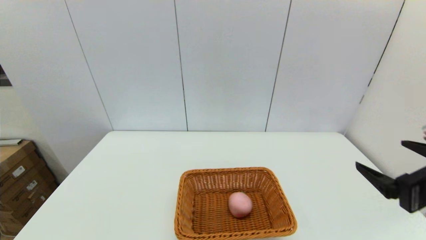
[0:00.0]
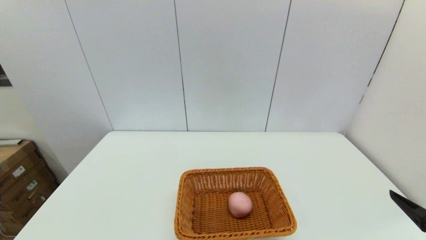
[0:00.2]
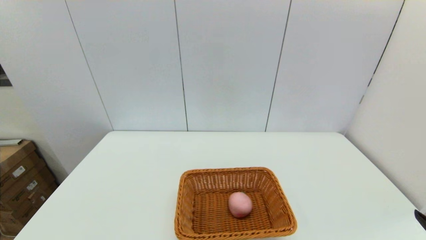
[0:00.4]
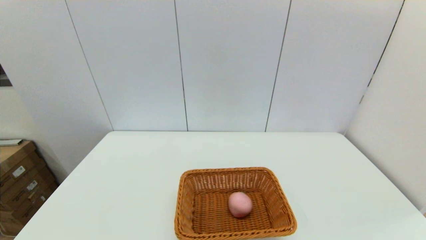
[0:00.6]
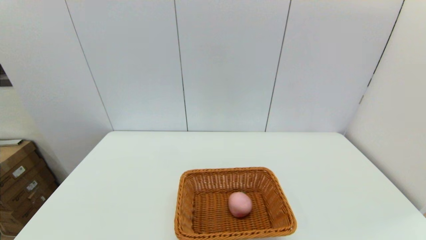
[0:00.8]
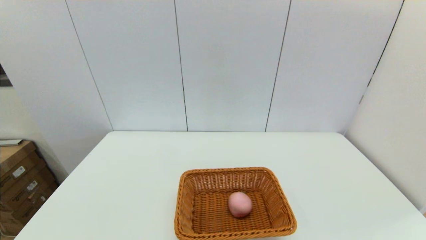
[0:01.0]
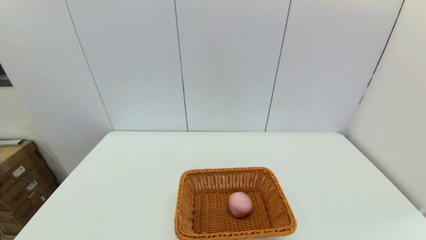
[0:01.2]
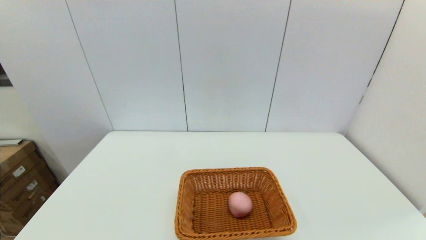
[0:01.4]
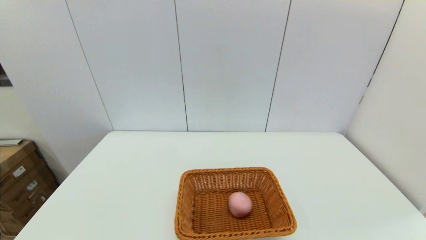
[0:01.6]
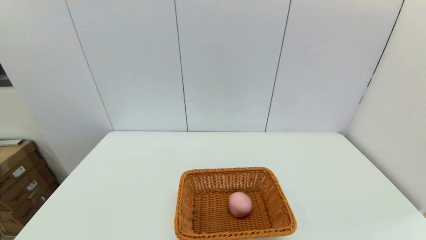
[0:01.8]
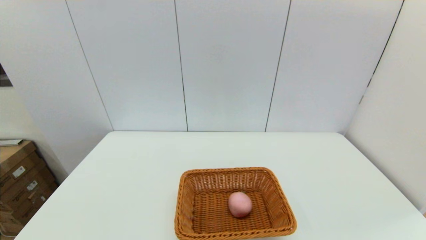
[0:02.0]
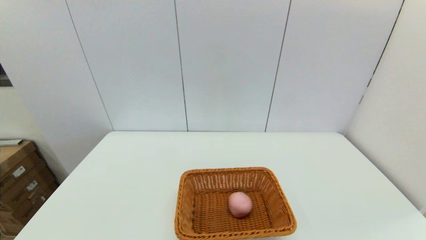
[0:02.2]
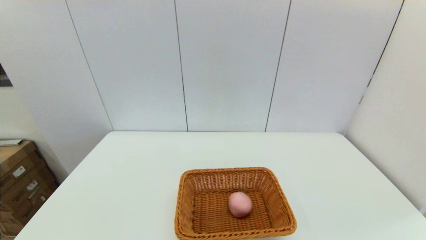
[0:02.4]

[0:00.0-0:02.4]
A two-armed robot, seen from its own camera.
0:00.0 to 0:01.2: The right gripper moves backward and downward, some 15 cm.

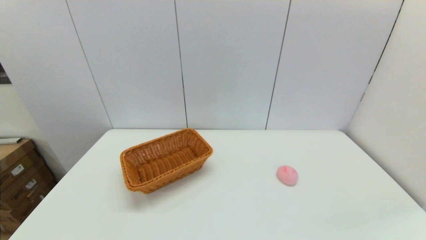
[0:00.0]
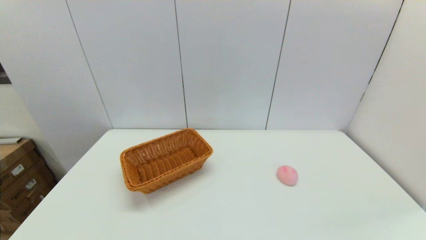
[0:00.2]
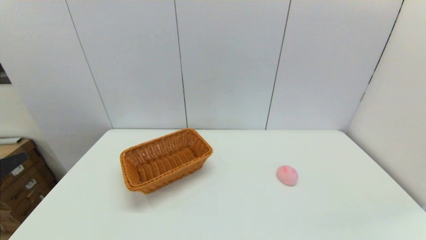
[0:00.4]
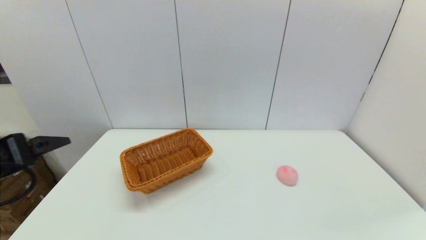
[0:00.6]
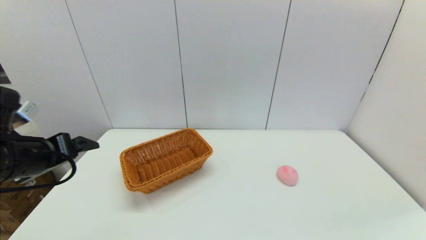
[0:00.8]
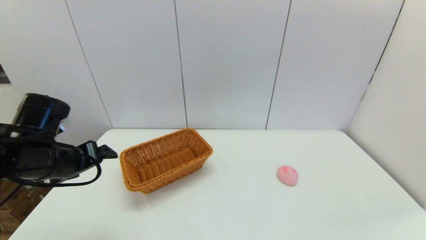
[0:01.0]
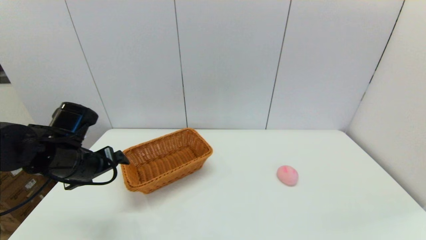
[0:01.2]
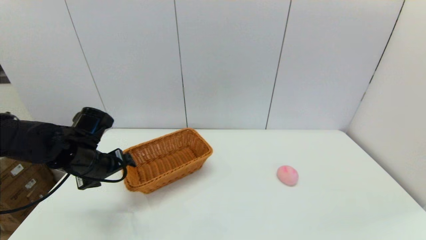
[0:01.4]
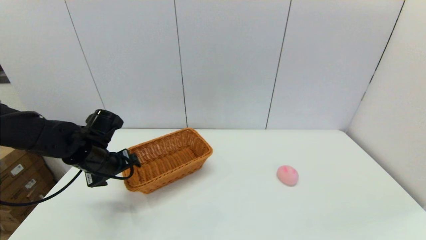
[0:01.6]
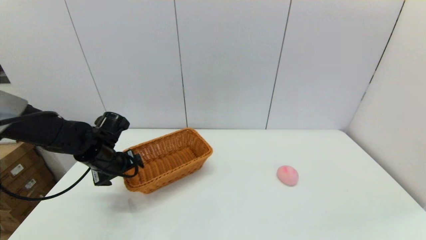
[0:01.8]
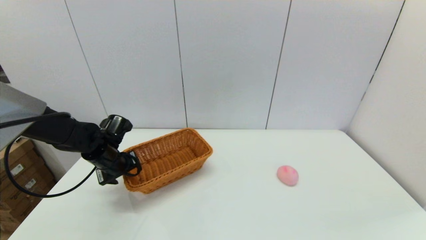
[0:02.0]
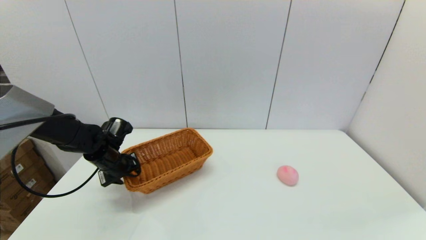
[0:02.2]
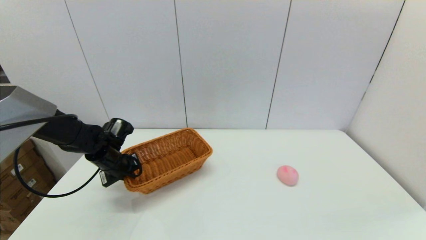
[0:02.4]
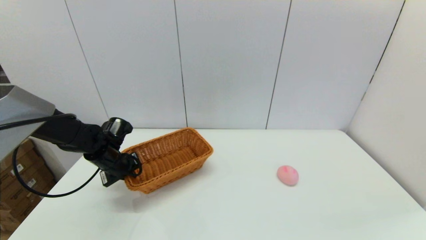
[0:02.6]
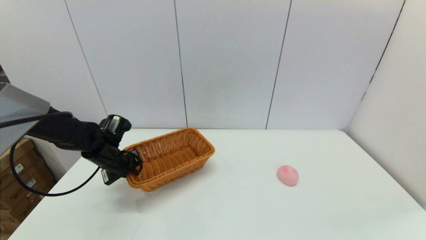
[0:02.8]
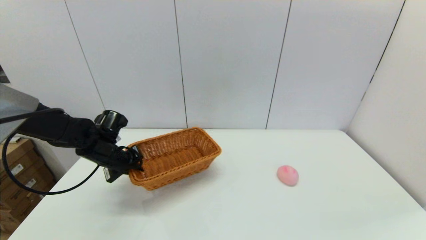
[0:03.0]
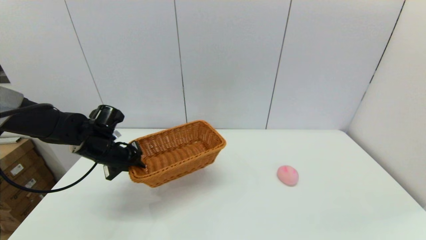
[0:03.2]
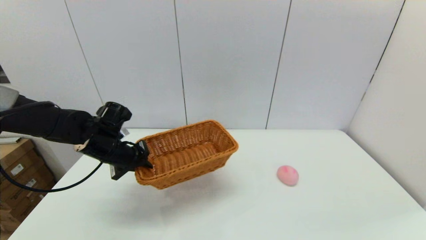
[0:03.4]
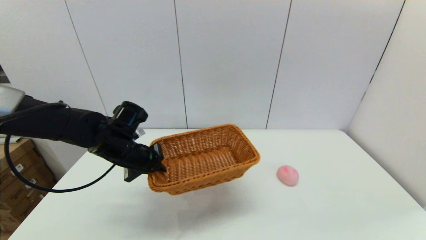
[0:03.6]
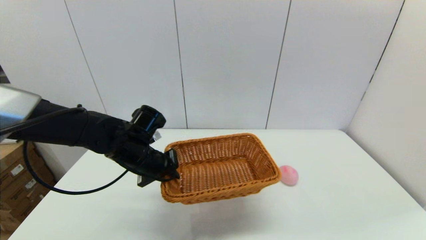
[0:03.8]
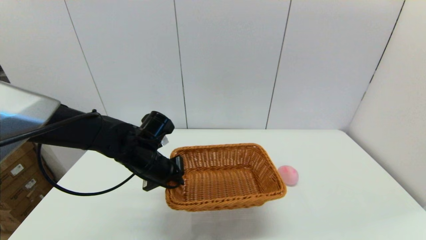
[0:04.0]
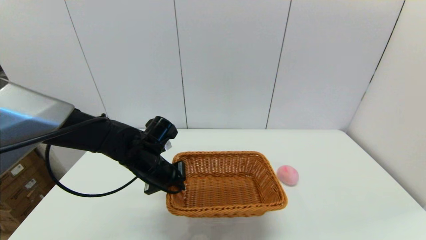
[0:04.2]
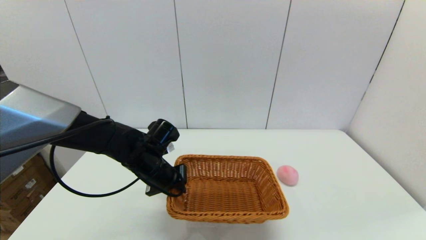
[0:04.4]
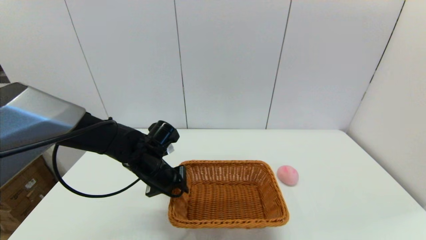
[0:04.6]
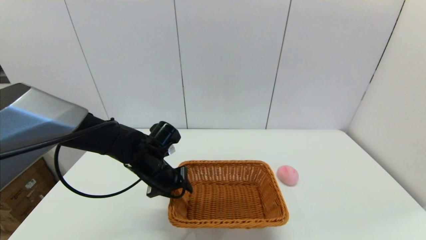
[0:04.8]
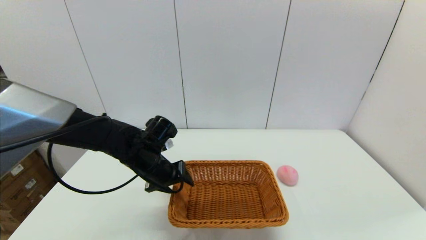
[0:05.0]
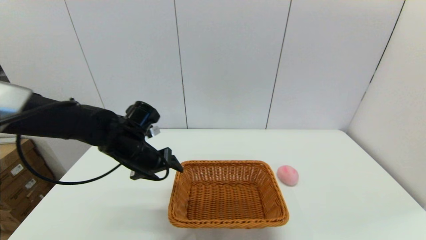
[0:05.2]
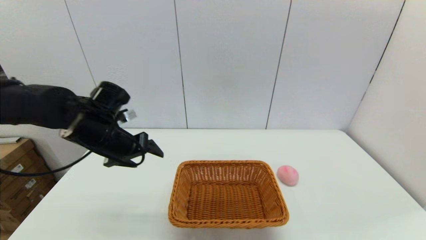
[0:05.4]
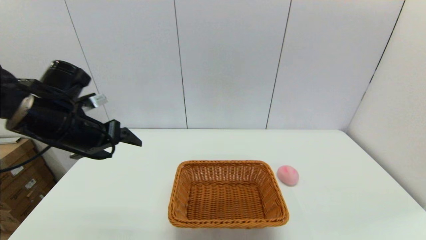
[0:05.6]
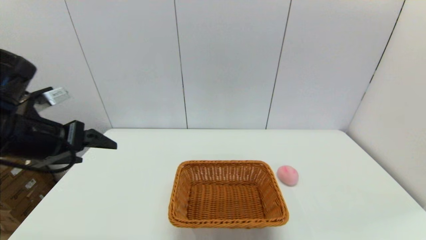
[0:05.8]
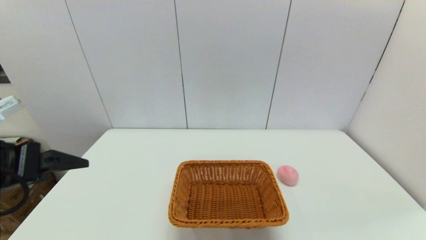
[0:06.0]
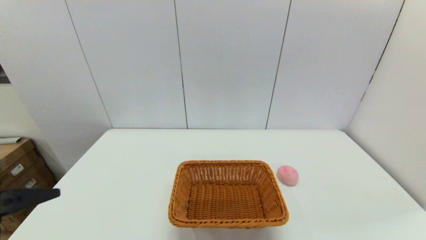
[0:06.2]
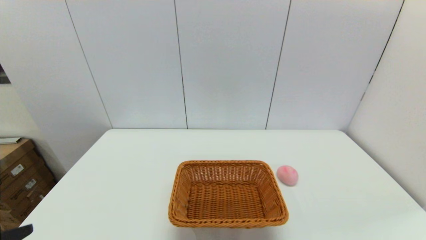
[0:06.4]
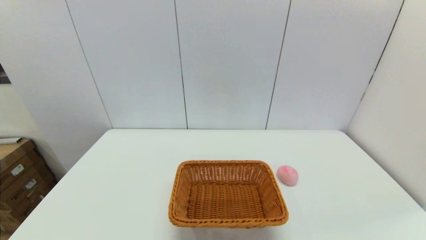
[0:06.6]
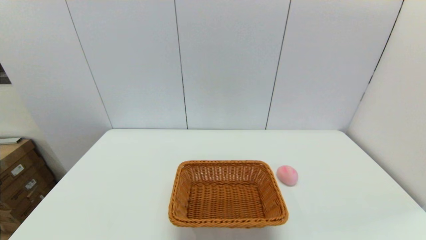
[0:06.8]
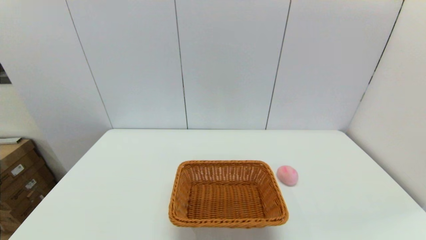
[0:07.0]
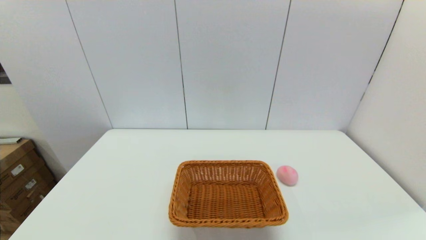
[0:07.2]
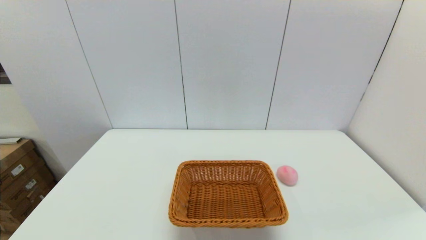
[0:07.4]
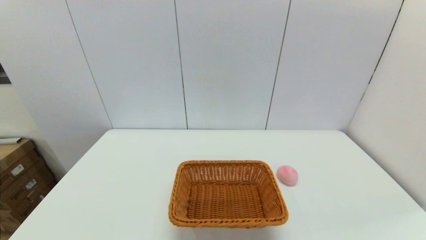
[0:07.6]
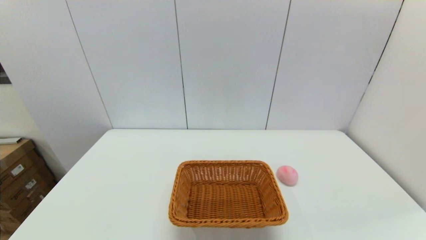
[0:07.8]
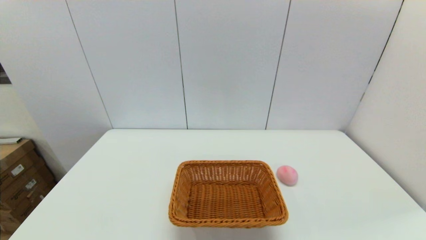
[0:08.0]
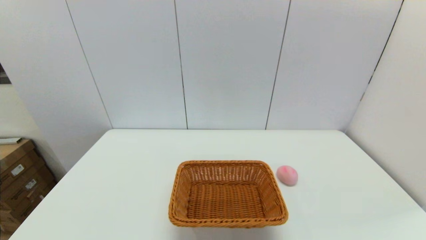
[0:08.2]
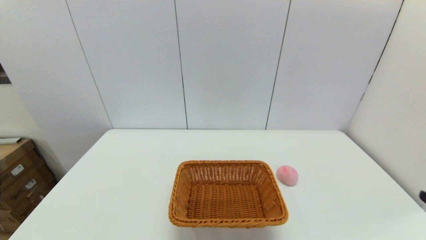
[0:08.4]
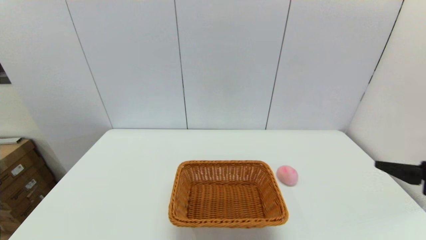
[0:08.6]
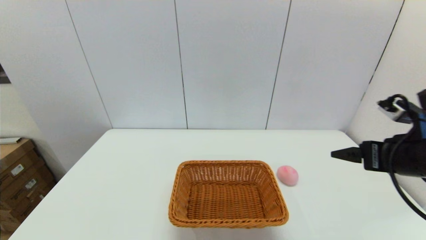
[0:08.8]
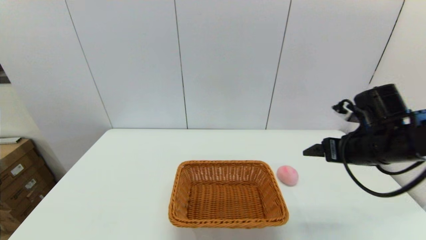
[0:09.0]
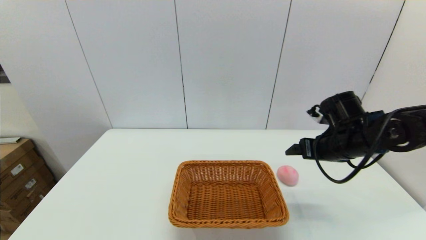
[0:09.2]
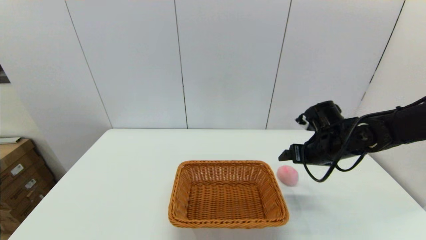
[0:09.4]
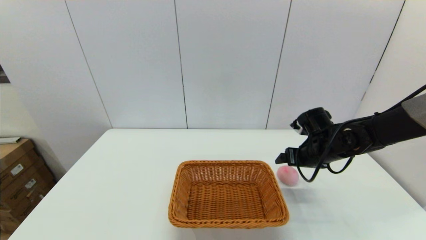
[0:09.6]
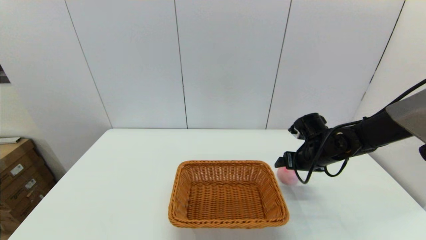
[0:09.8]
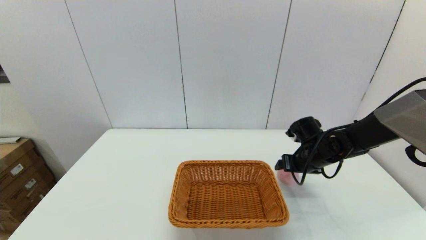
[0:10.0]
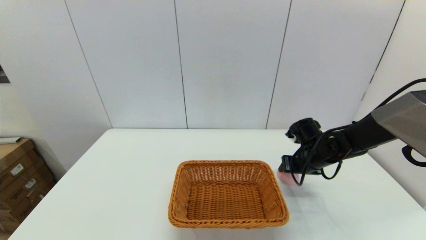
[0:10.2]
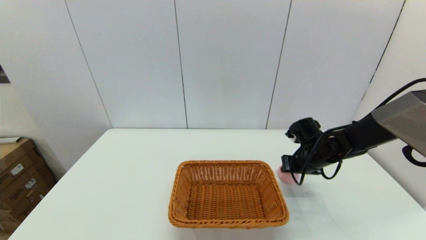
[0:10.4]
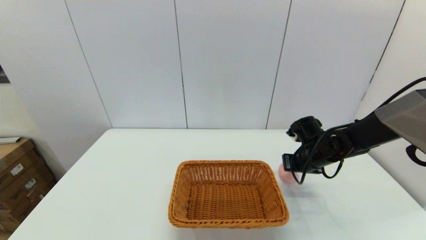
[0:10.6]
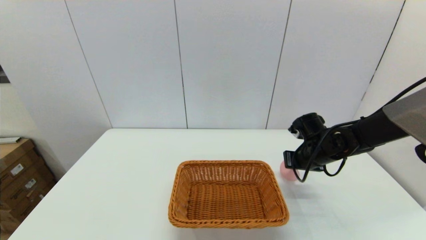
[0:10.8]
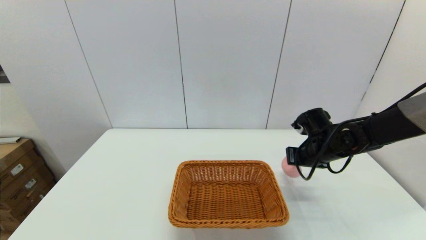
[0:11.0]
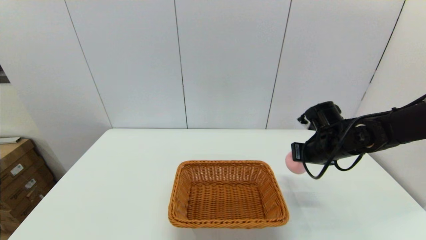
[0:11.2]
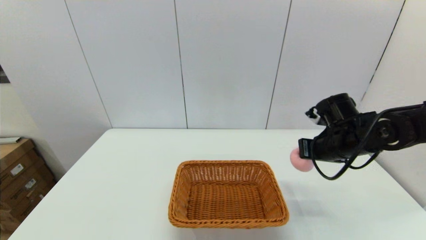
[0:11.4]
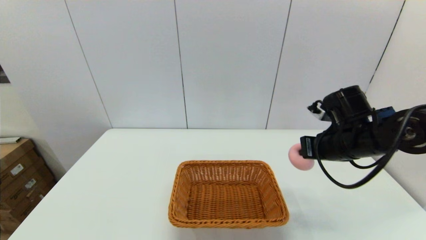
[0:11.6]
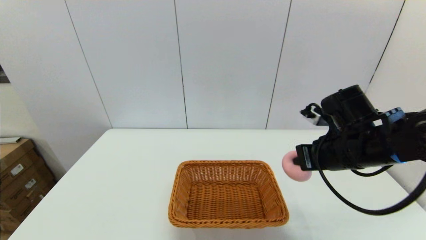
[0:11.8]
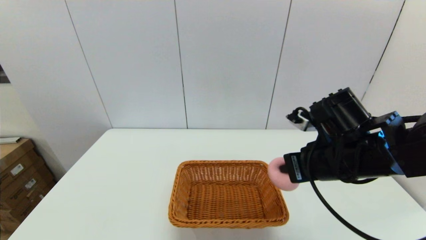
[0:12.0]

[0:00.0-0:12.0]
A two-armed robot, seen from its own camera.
Step, 0:00.0 to 0:02.4: Grasp the light basket with the left gripper.
Step, 0:02.6 to 0:04.6: Place the light basket on the middle of the table with the left gripper.
Step, 0:04.8 to 0:10.6: Grasp the peach with the right gripper.
0:00.0 to 0:01.6: The left gripper shifts roughly 35 cm forward.
0:01.6 to 0:03.0: The left gripper closes up.
0:03.0 to 0:04.4: The left gripper moves to the right, roughly 15 cm.
0:04.4 to 0:06.0: The left gripper is displaced upward, backward and to the left by some 30 cm, and opens up.
0:06.0 to 0:07.6: The left gripper heads downward and backward, covering approximately 25 cm.
0:07.6 to 0:09.0: The right gripper goes about 30 cm forward.
0:09.0 to 0:10.4: The right gripper is displaced downward and forward by approximately 15 cm, and closes.
0:10.4 to 0:12.0: The right gripper travels backward, upward and to the left by approximately 20 cm, and closes its fingers.

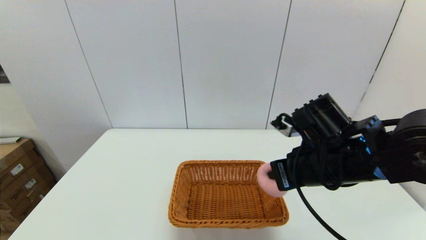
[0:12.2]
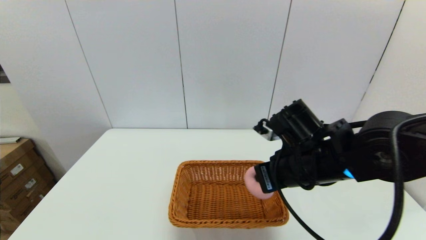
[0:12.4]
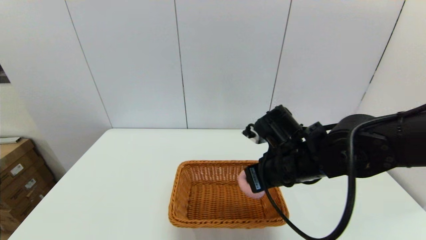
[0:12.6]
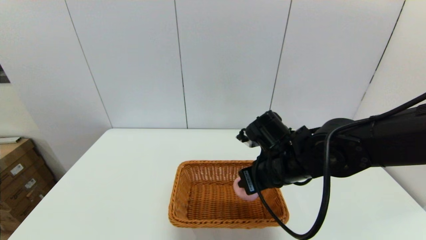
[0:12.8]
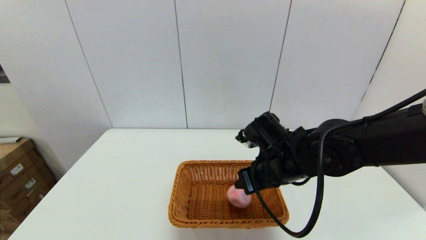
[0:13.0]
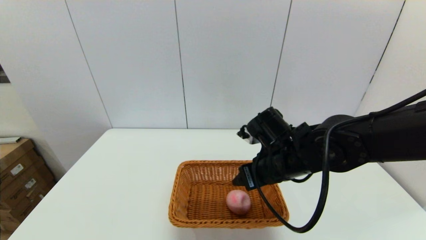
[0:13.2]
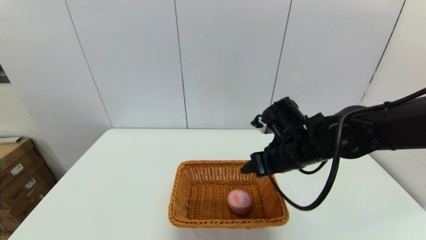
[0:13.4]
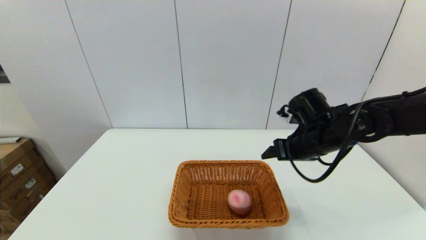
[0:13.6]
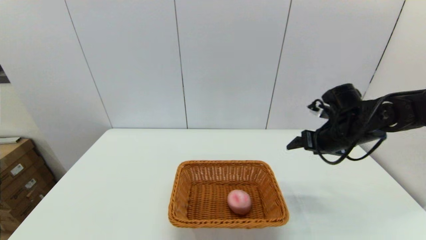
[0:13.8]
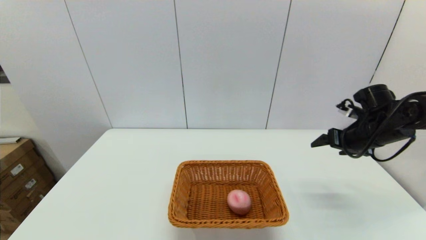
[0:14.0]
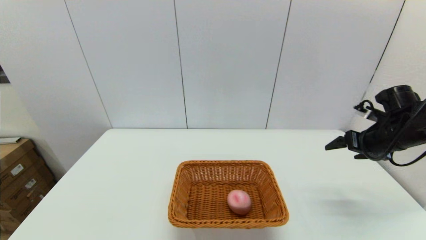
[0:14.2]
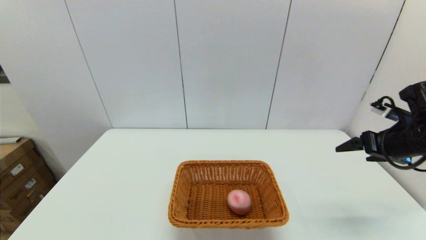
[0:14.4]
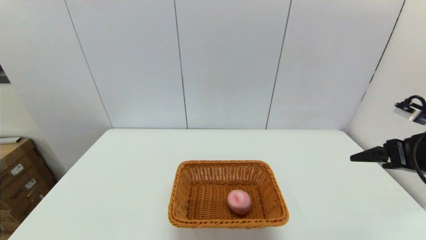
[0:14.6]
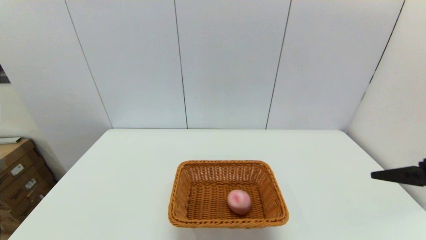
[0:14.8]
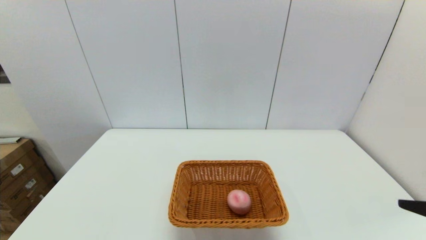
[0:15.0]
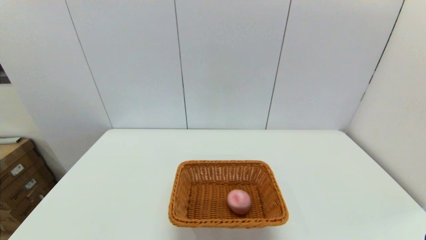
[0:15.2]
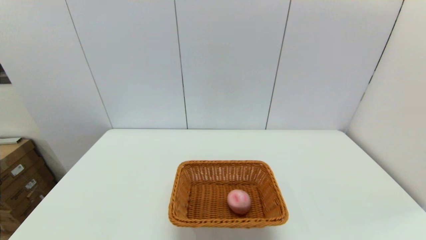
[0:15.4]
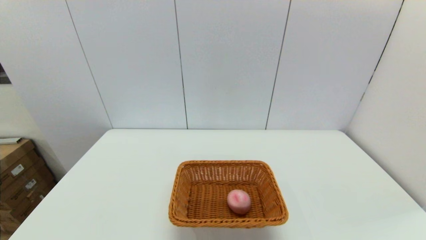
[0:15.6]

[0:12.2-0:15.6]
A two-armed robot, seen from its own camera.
0:12.2 to 0:13.8: The right gripper shifts roughly 15 cm to the right and forward, and opens.
0:13.8 to 0:15.6: The right gripper goes about 35 cm backward.
